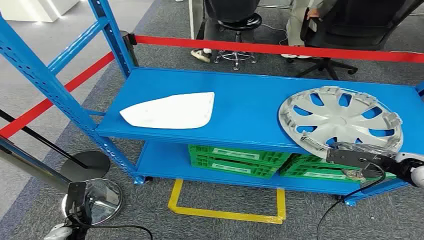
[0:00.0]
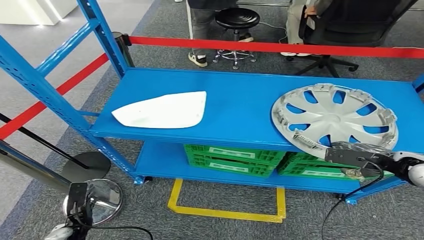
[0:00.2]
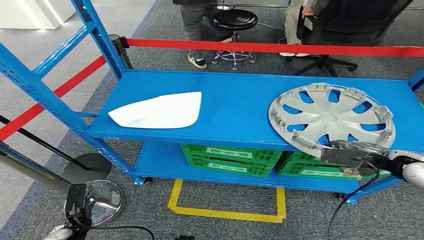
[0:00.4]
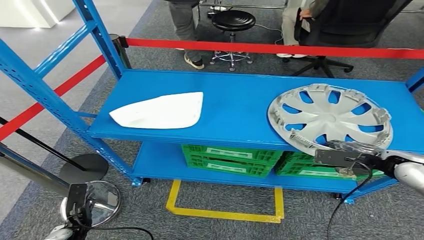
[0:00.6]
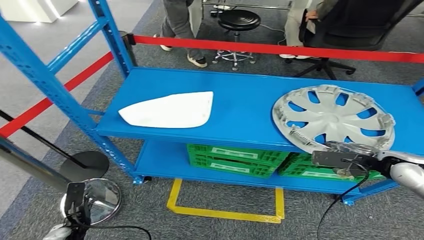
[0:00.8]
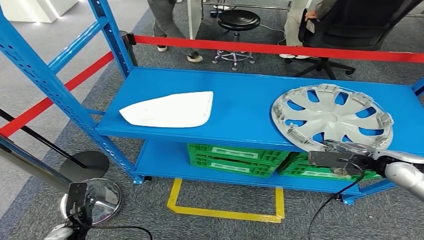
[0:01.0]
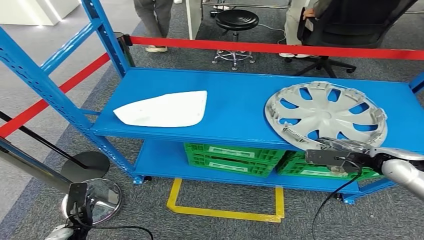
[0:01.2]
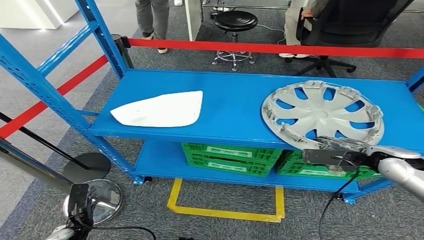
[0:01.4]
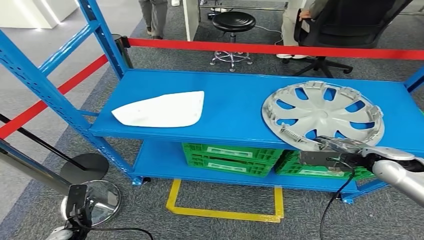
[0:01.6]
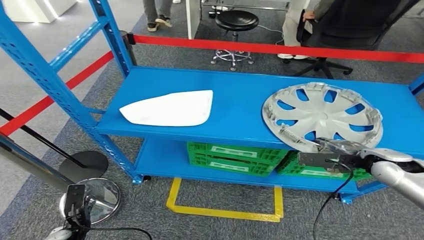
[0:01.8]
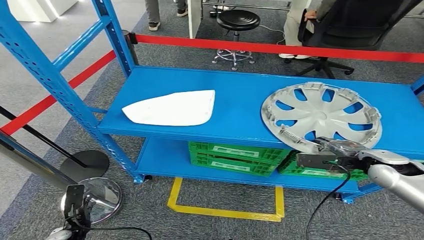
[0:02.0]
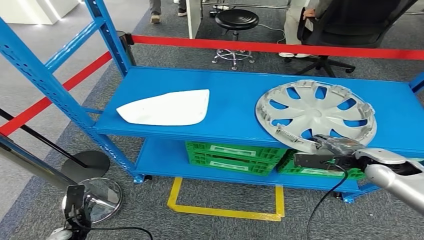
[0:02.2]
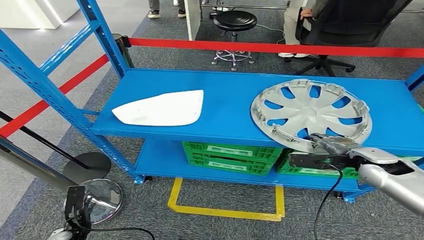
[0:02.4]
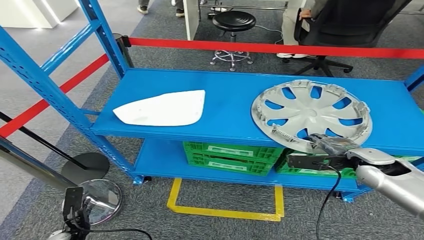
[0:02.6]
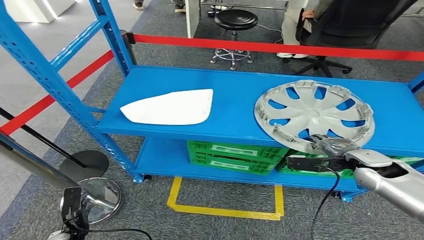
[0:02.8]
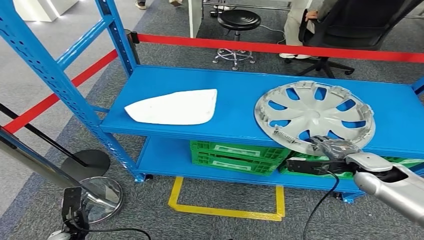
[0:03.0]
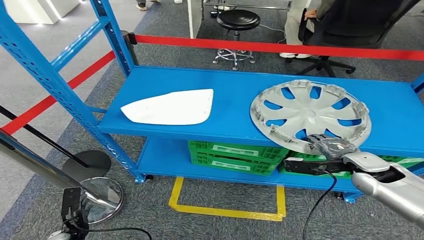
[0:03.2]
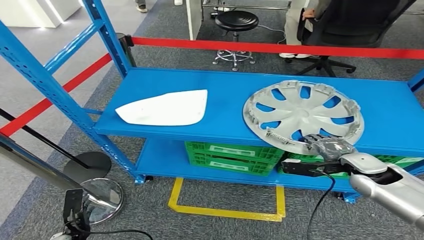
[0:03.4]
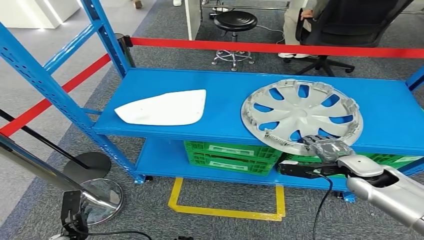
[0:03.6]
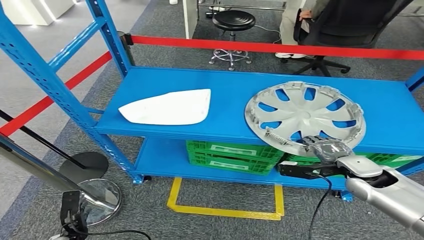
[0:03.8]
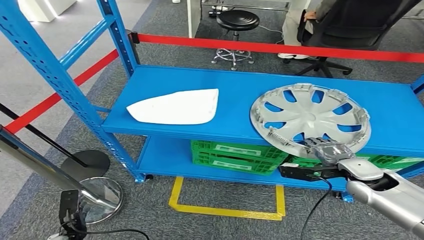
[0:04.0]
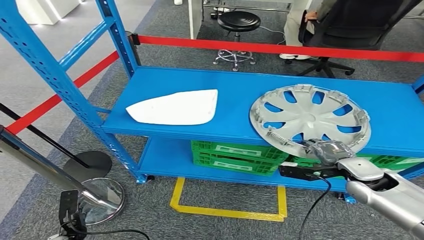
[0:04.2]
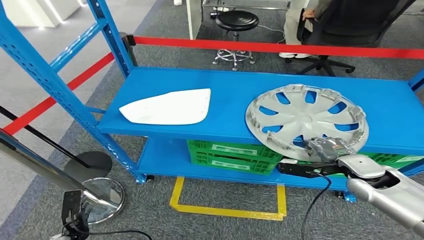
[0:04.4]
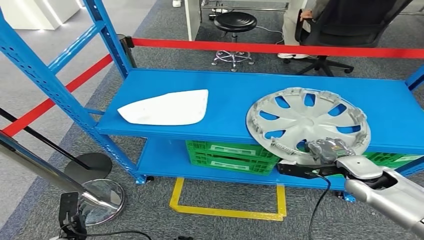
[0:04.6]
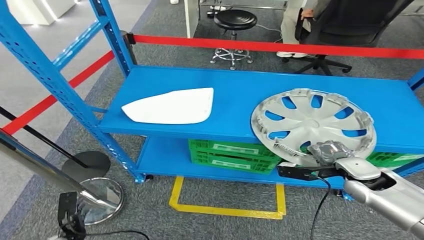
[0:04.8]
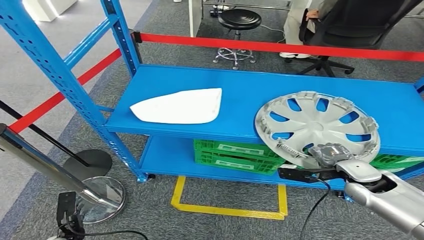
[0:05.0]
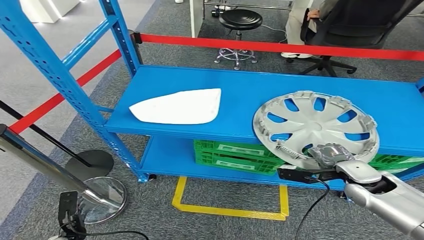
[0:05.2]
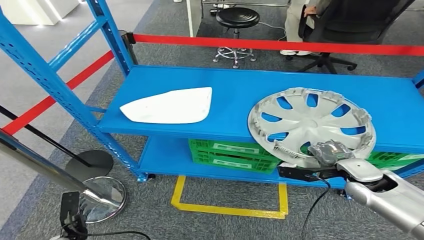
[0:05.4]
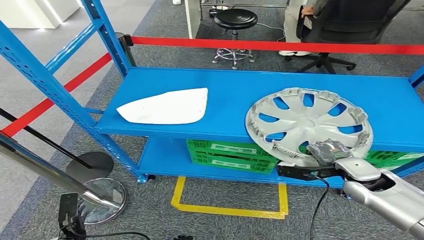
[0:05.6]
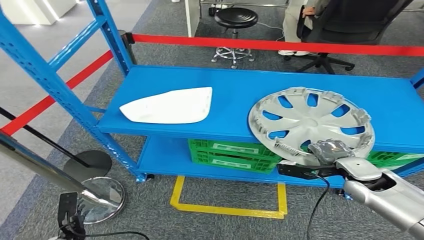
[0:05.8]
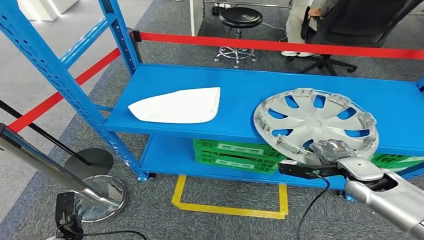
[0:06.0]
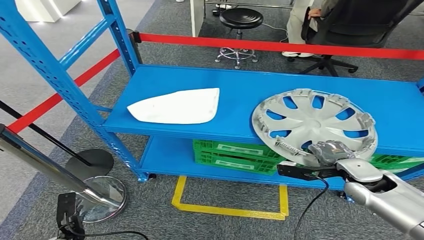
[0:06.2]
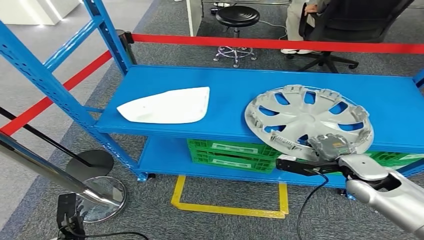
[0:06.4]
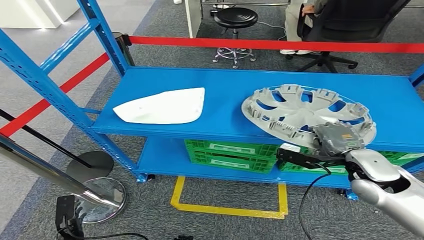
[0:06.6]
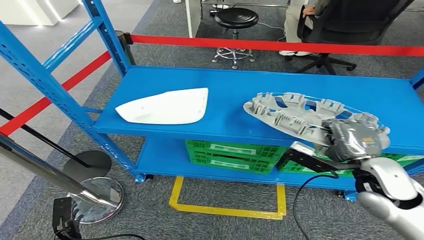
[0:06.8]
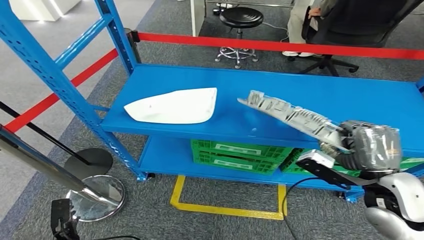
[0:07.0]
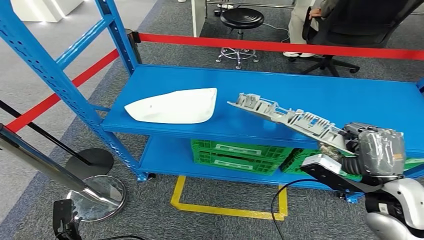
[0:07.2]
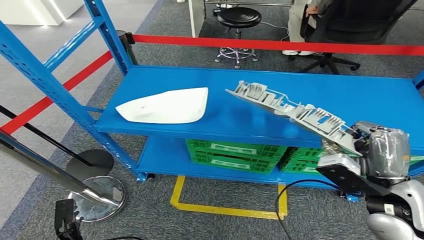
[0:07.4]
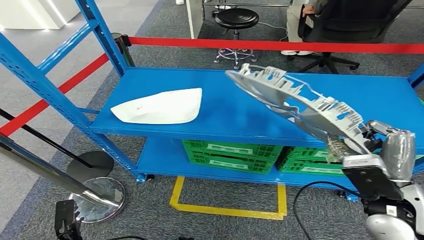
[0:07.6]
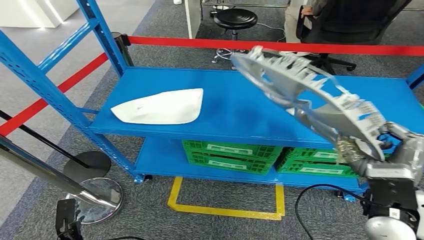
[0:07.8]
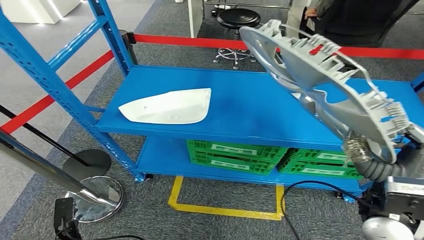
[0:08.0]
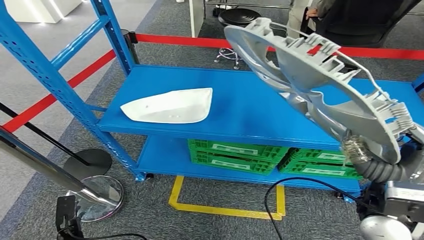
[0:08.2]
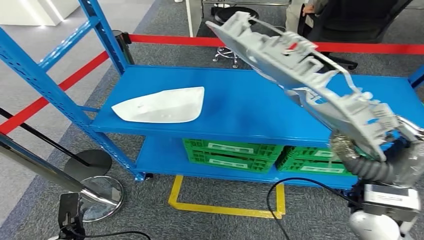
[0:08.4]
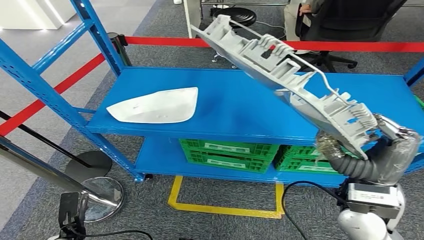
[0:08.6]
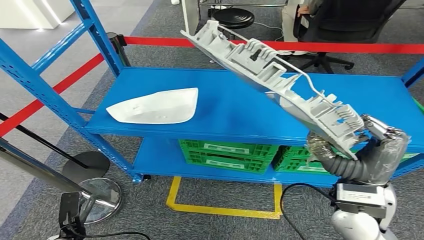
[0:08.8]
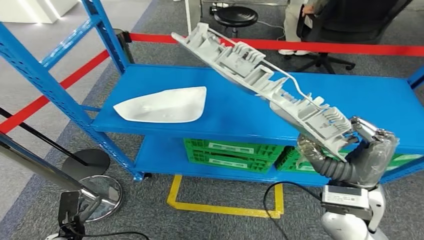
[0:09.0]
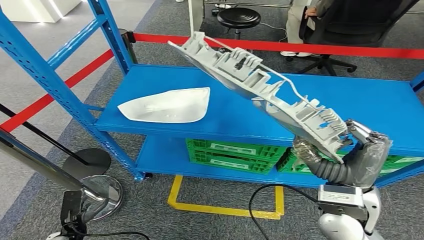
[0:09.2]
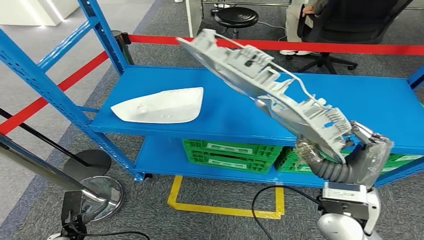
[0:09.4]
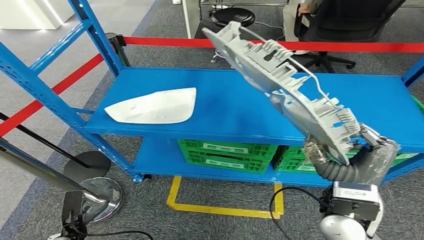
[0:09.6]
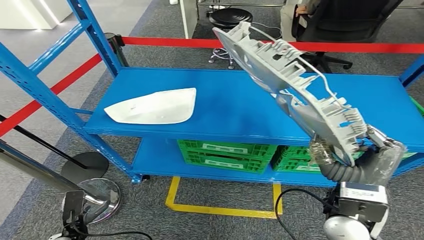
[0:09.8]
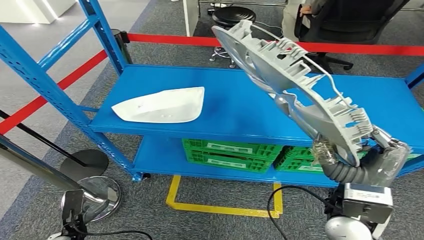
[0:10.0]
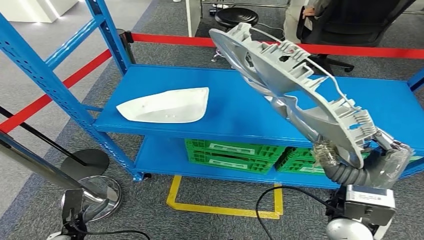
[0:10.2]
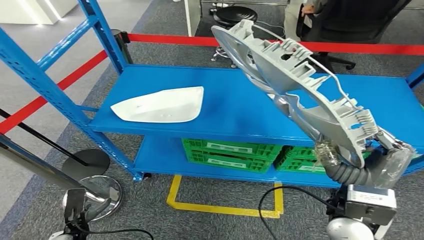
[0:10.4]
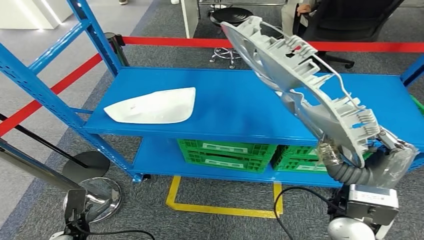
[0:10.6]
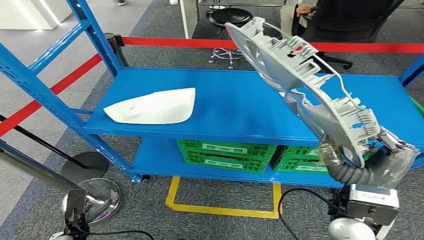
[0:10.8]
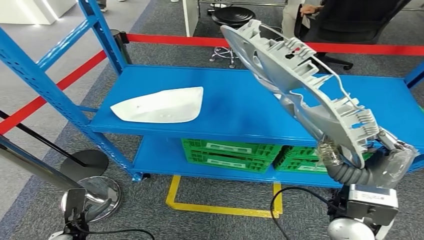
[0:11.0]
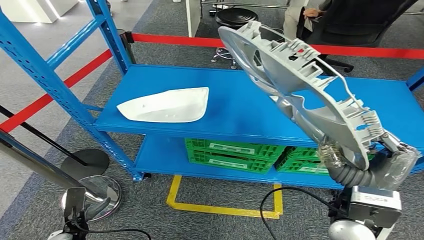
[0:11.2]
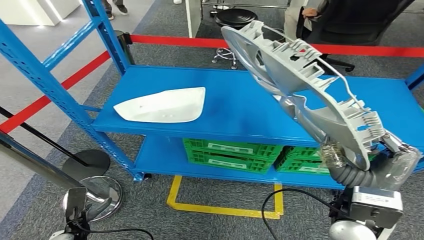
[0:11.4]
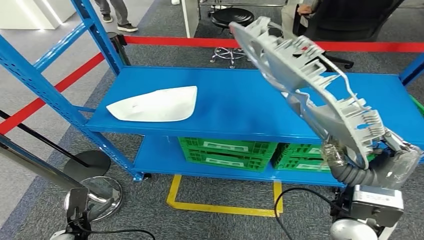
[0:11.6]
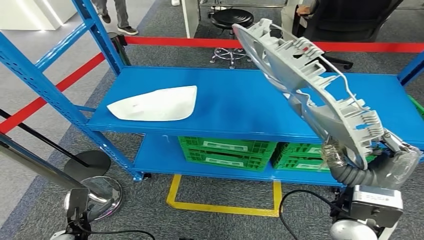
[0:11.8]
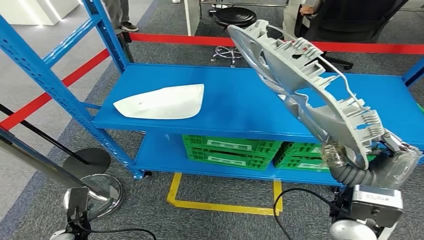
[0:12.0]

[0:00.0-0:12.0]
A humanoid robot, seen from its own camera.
Step, 0:00.0 to 0:11.2: Take small components from the rack.

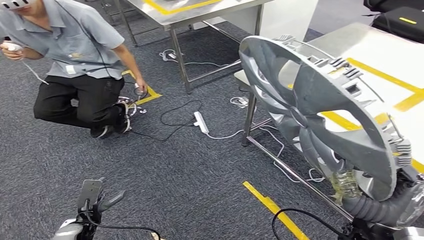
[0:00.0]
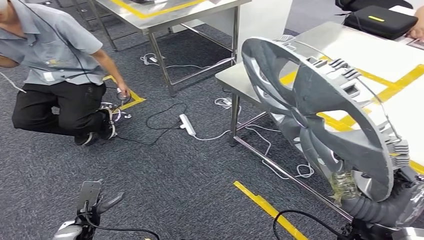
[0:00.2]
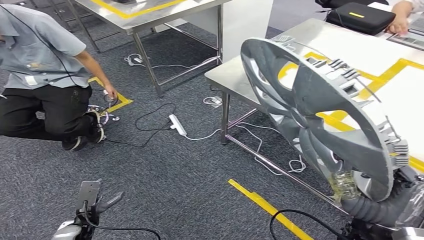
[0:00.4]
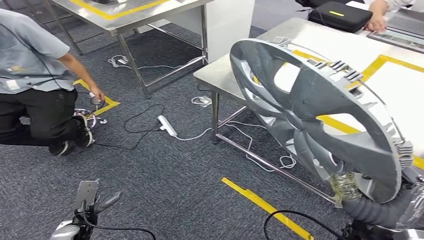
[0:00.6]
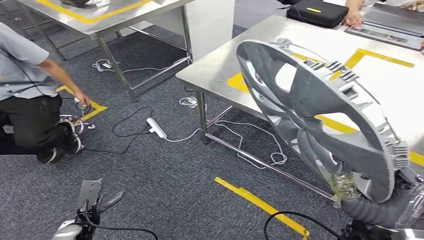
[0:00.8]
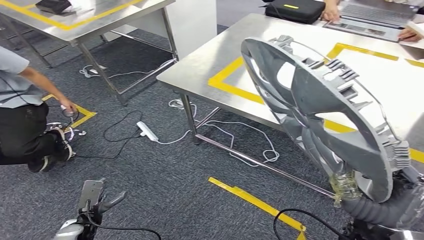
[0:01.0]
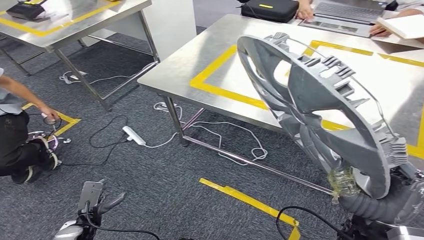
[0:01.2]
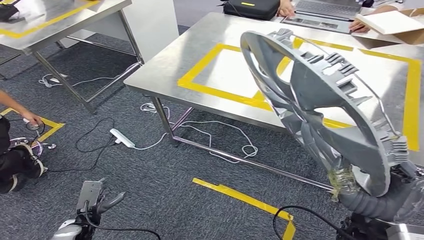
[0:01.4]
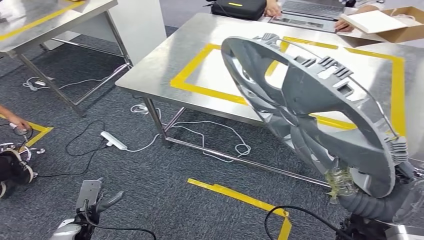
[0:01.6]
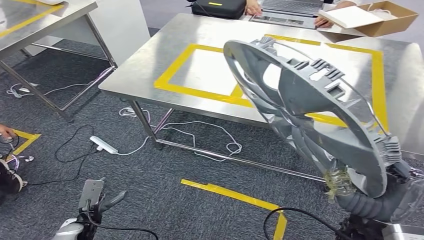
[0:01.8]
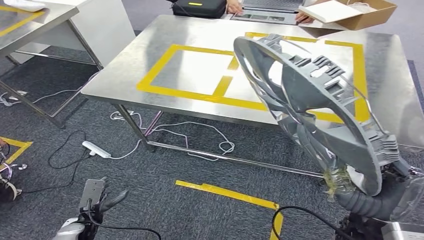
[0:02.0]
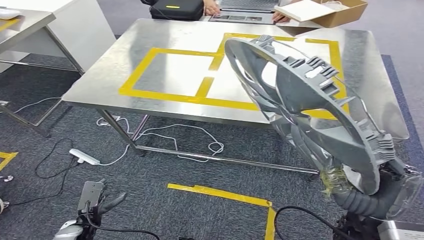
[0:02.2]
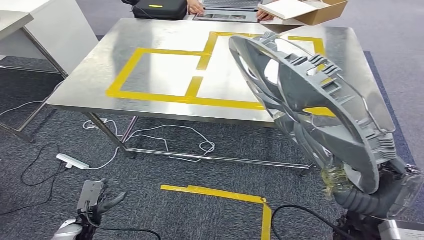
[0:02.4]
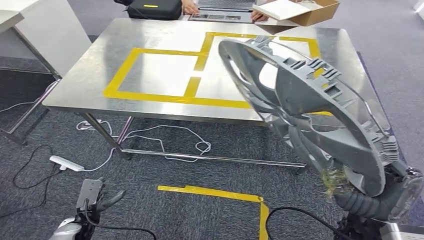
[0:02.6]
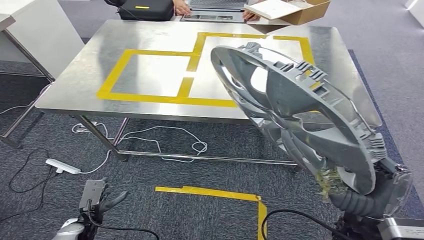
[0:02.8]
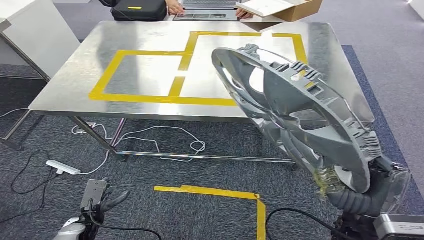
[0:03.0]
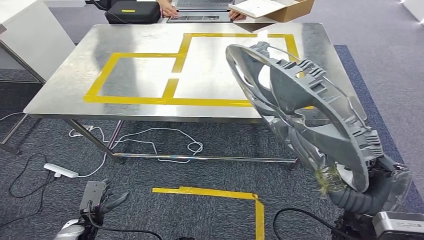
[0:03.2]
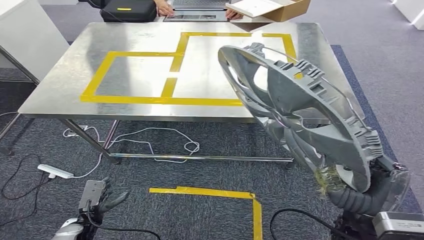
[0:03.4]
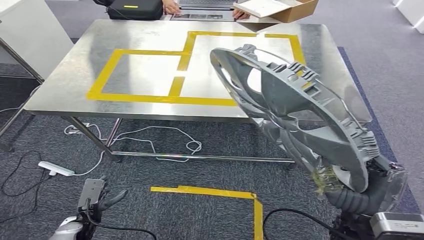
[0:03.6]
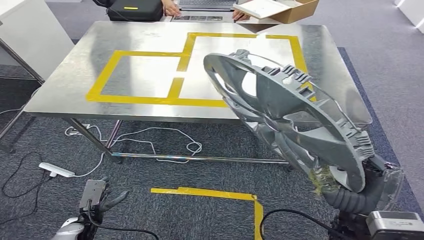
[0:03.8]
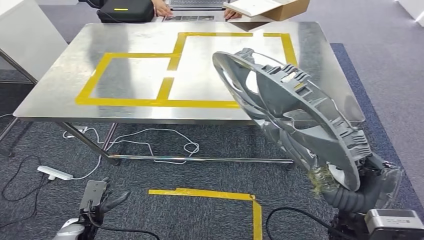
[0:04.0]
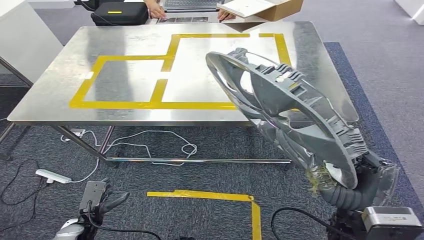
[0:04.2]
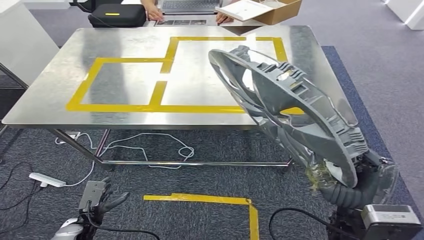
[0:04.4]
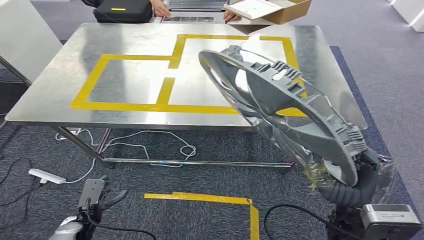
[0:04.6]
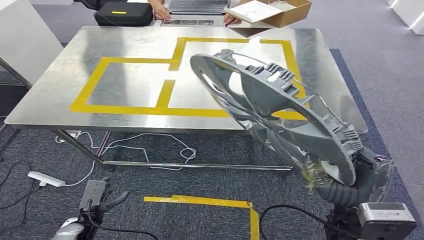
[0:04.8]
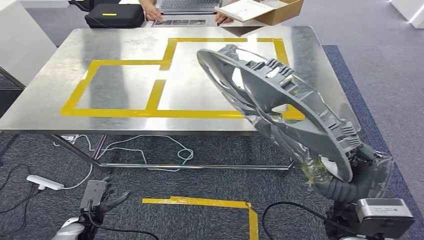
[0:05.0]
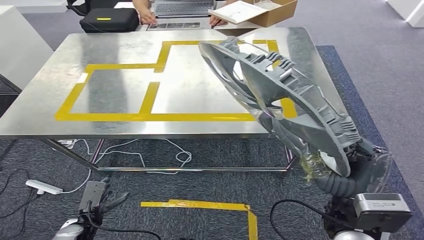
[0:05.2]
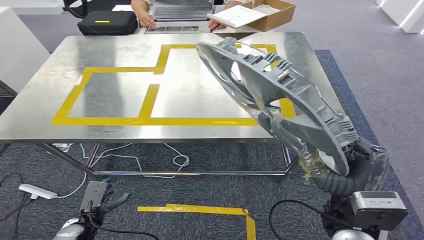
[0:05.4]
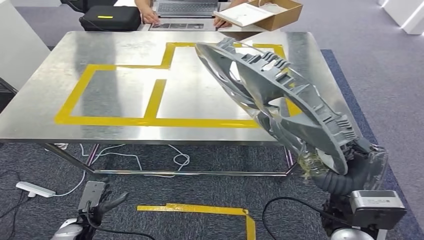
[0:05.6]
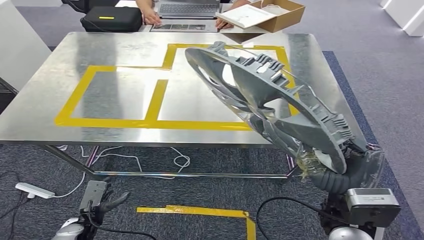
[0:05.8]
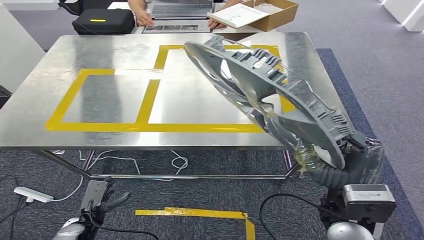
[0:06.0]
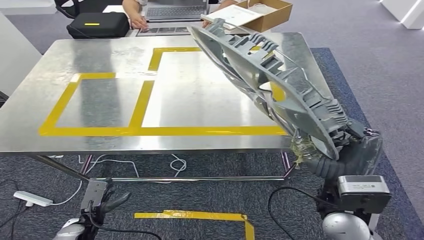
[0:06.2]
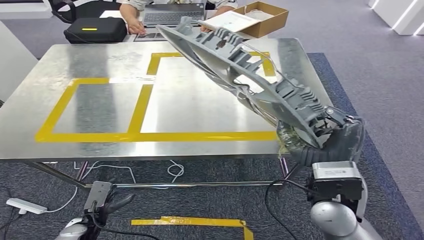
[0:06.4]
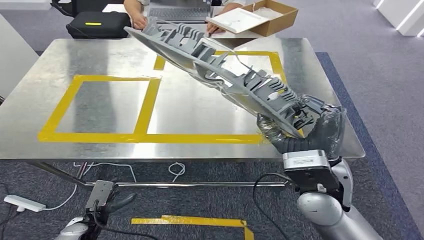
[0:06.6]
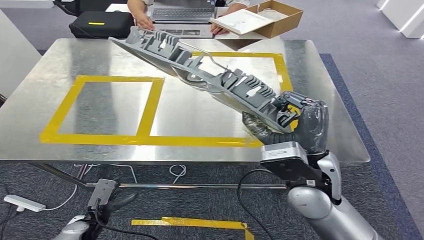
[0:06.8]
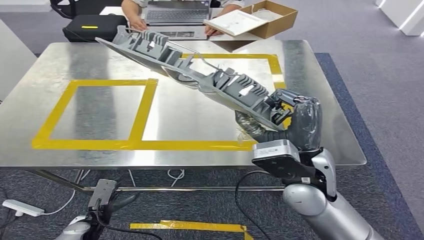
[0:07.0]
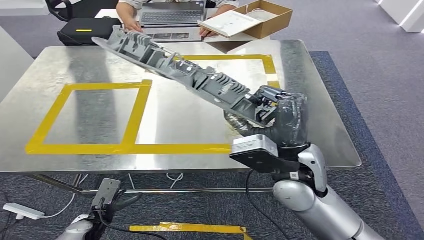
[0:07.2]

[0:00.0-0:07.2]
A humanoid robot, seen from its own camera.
Step, 0:00.0 to 0:05.6: Move the small parts to the workbench.
